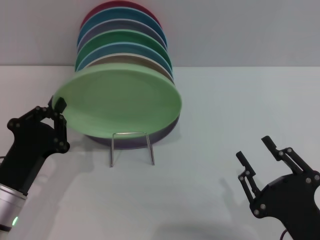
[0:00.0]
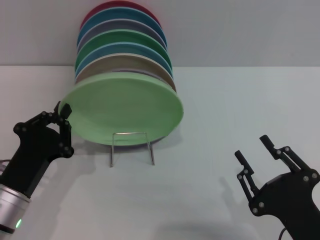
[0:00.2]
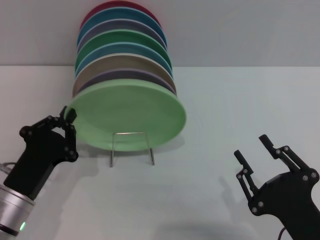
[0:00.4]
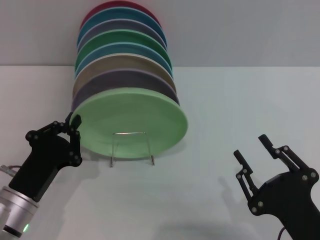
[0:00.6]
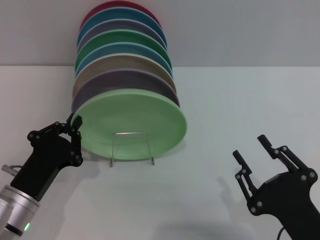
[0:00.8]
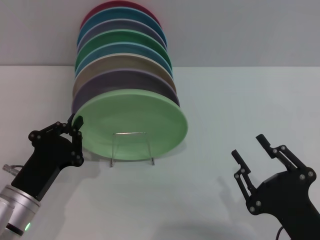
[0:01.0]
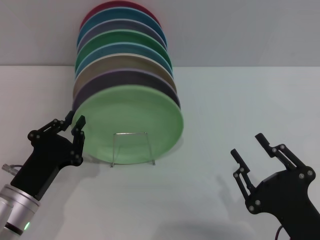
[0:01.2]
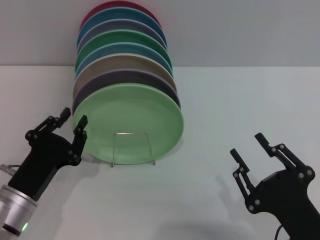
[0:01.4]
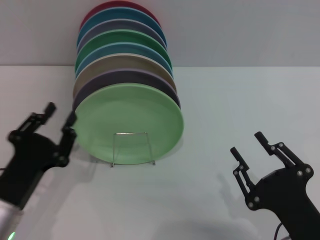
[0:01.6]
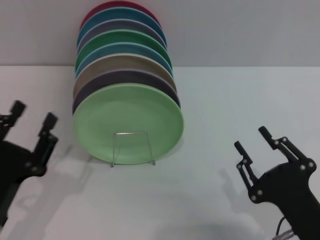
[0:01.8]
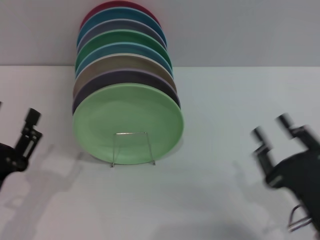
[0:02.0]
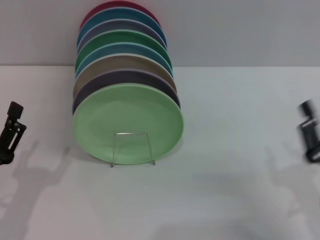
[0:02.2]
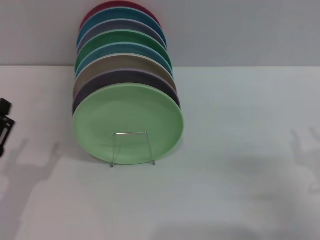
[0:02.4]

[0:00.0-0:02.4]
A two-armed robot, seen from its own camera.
Task of the whole recording: Grip the plate with one hand, pass it to the other, then set it on the shelf.
0:00.0 to 0:01.2: The grippers move only a little.
0:01.2 to 0:02.4: The left gripper goes about 5 cm to the left, and opens its fingers. Meanwhile the right gripper goes roughly 10 cm to the right and forward.
